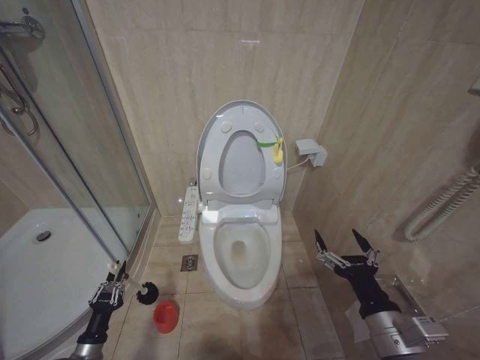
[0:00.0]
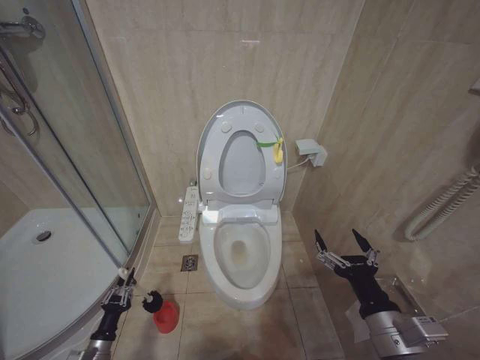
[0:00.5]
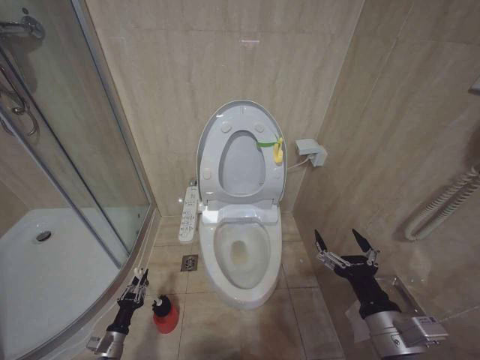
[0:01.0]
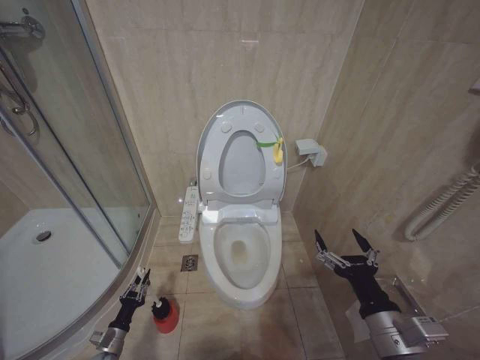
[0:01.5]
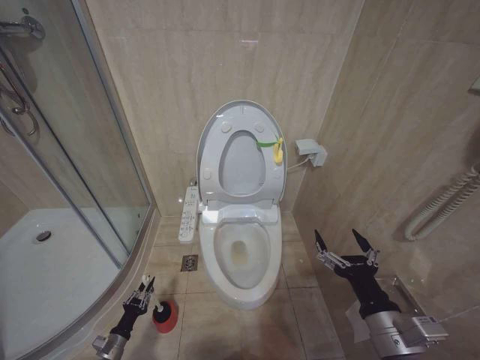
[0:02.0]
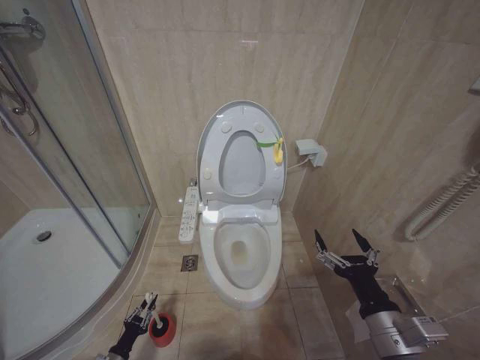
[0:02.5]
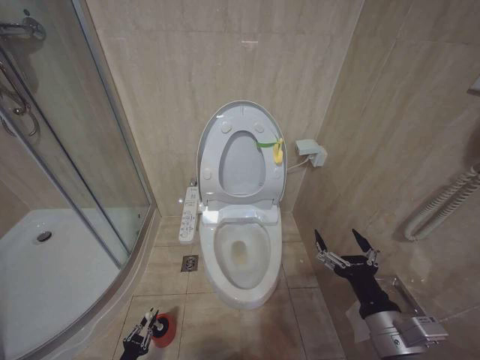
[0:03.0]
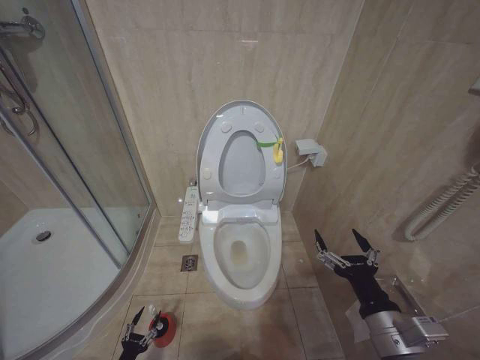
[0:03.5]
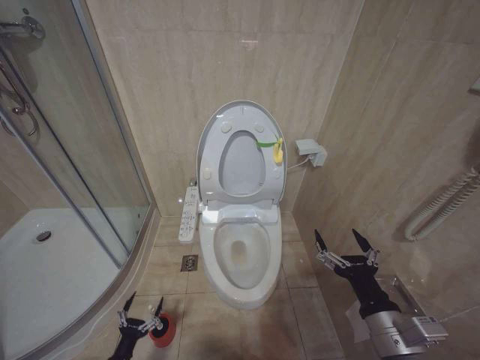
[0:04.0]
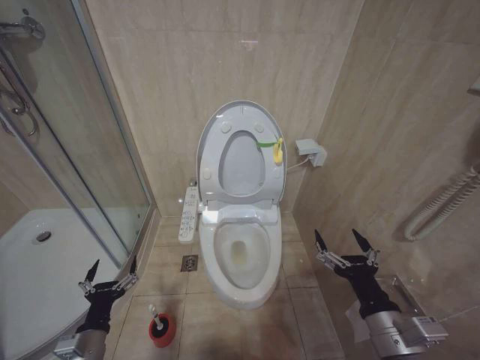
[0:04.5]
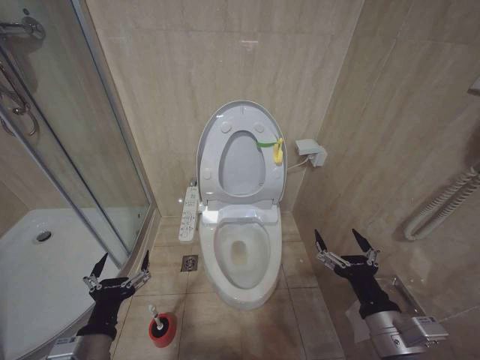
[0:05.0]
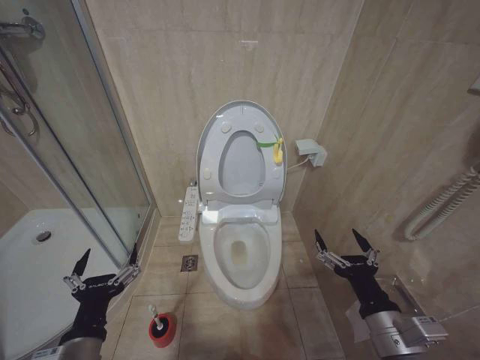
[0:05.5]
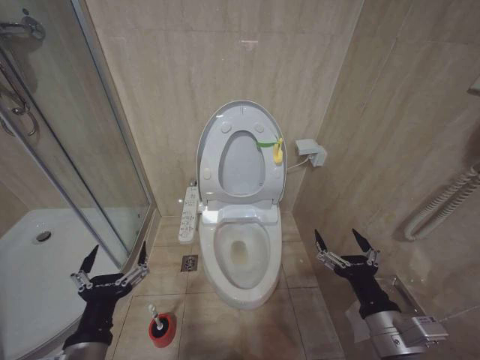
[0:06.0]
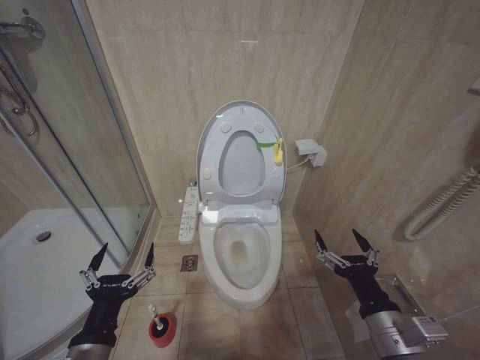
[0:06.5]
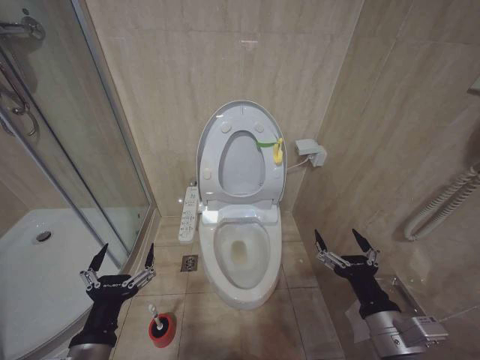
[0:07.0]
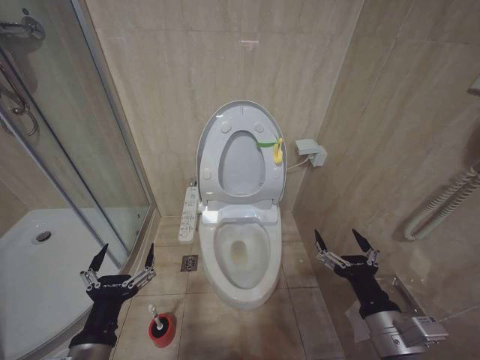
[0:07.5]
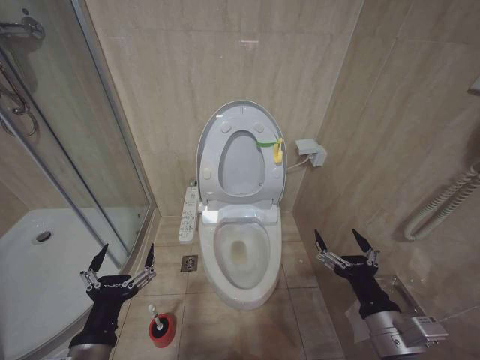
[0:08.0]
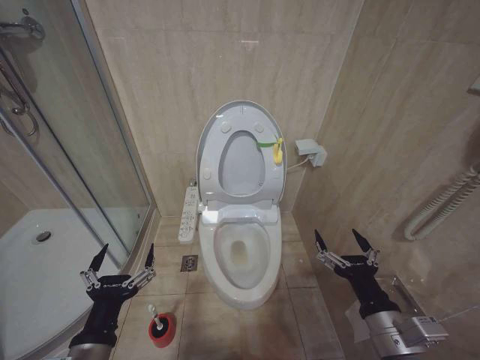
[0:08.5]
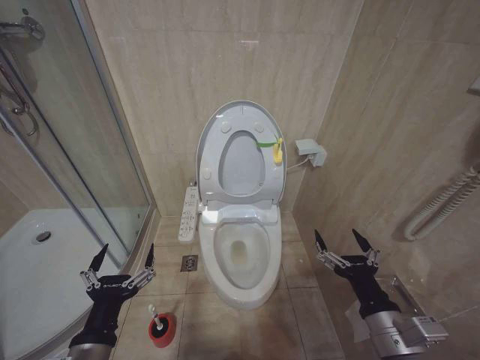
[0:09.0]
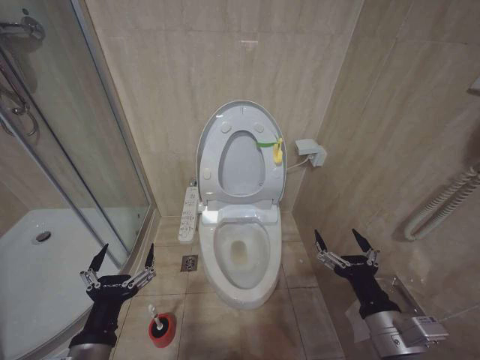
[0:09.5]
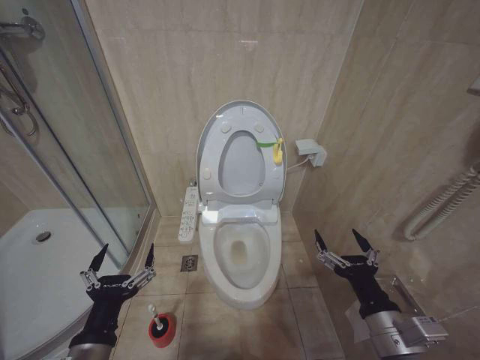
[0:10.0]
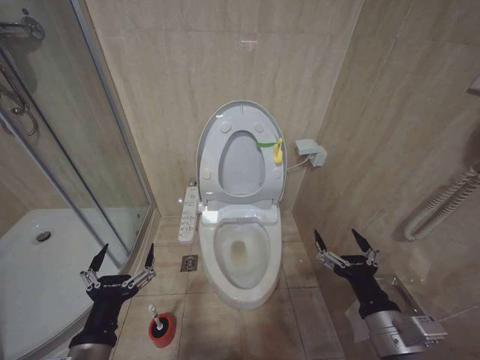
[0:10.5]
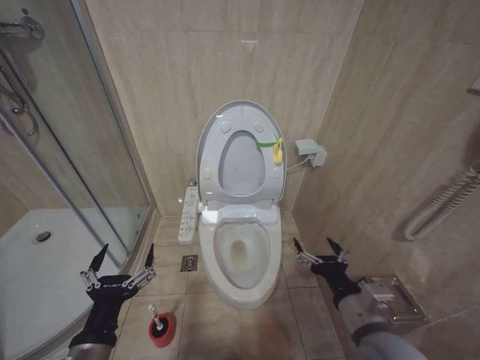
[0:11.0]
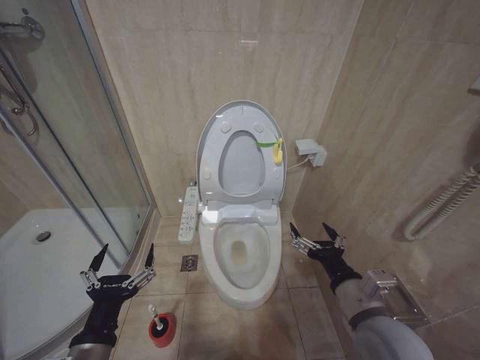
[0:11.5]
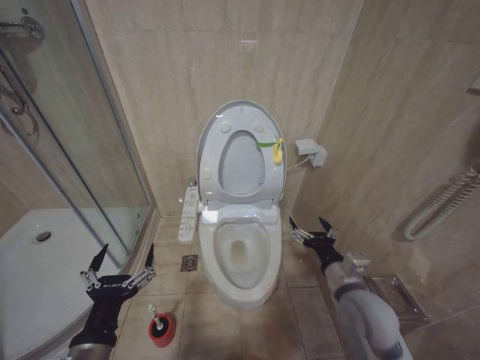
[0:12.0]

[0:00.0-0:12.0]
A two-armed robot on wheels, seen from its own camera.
Task of the whole recording: Open the toilet lid, clean the toilet bowl with a toilet brush, close the toilet lid, and flush.
0.0 to 2.0 s: The left gripper moves downward and forward, about 15 cm.
2.0 to 4.0 s: The left gripper moves backward and to the right, some 10 cm, and opens its fingers.
4.0 to 6.0 s: The left gripper goes some 35 cm upward.
6.0 to 8.0 s: The grippers move only a little.
8.0 to 10.0 s: Both grippers stay about where they are.
10.0 to 12.0 s: The right gripper travels forward by approximately 10 cm.

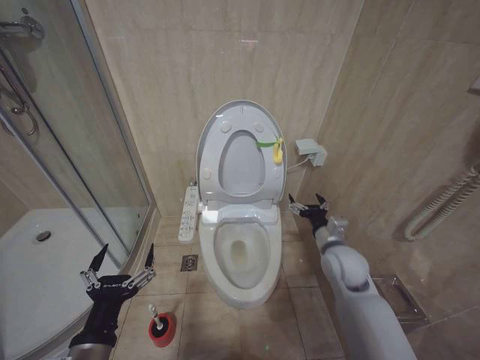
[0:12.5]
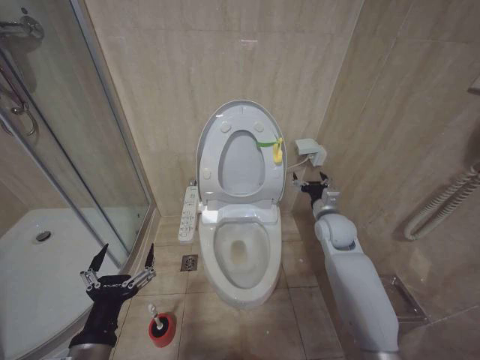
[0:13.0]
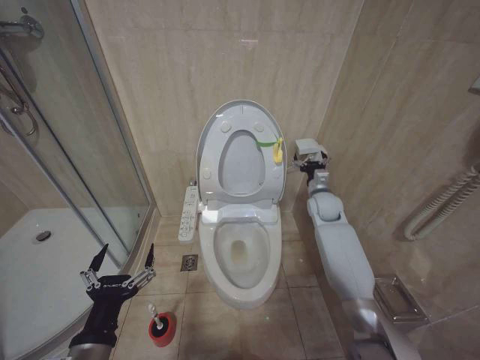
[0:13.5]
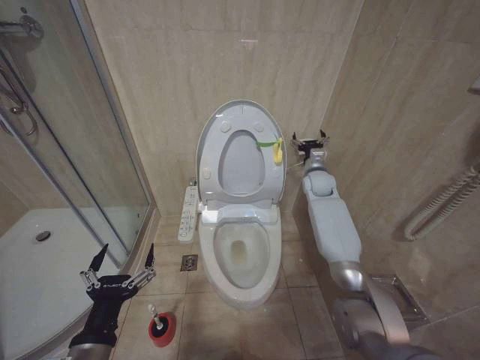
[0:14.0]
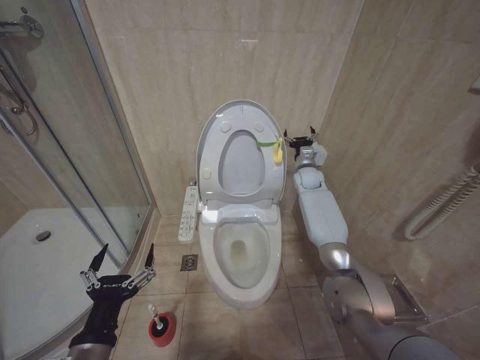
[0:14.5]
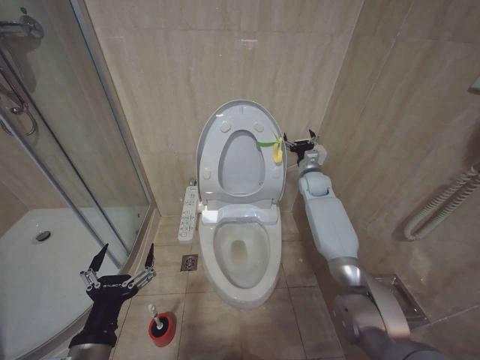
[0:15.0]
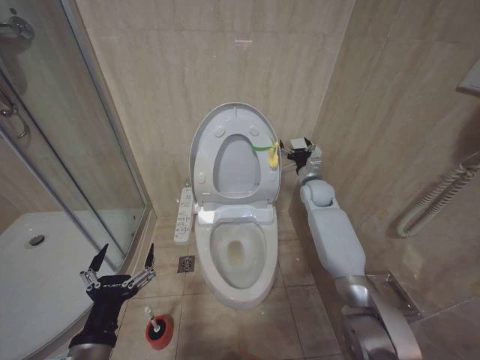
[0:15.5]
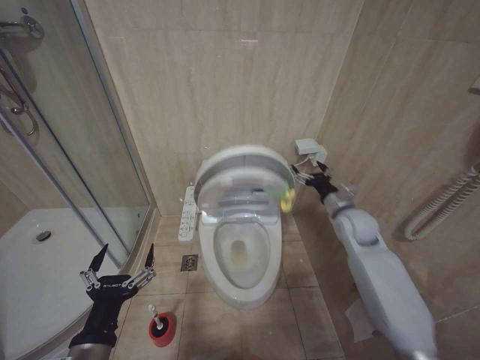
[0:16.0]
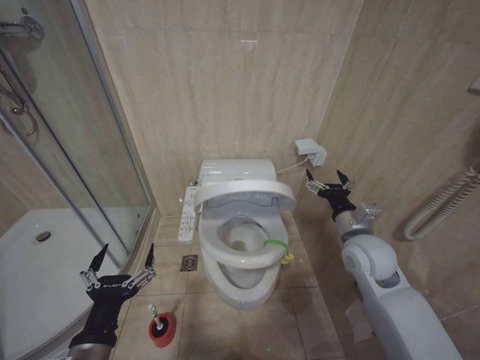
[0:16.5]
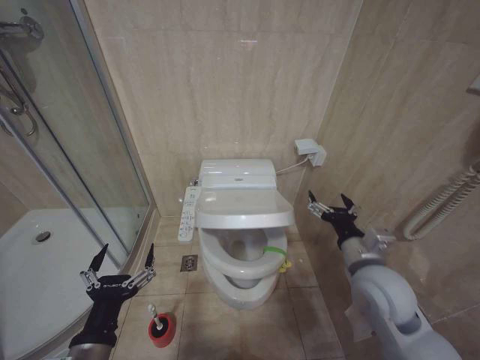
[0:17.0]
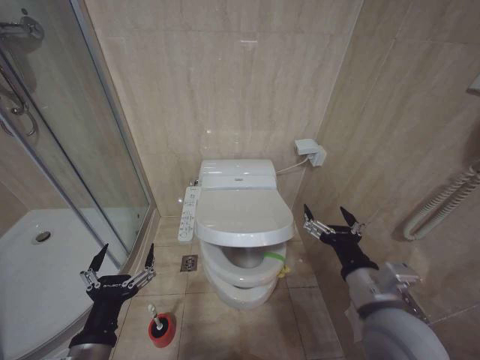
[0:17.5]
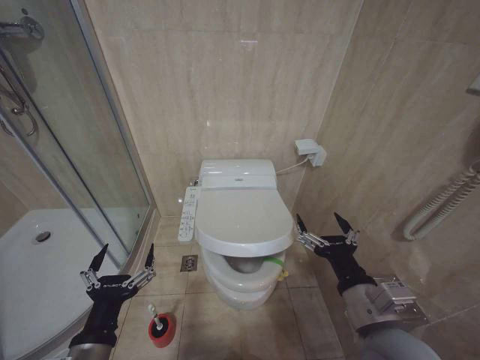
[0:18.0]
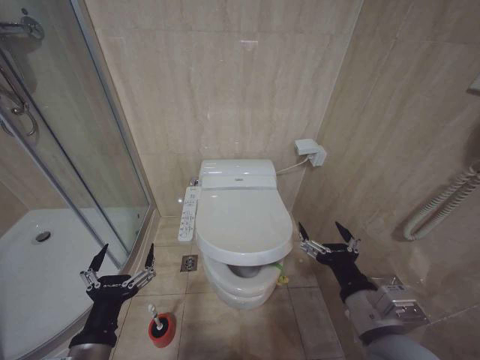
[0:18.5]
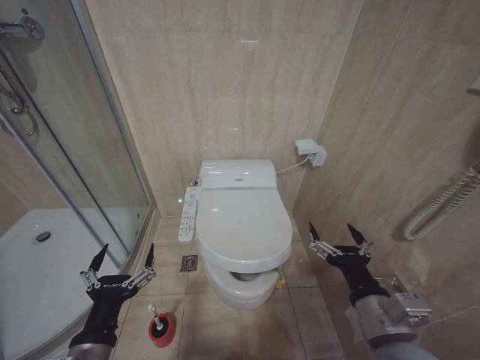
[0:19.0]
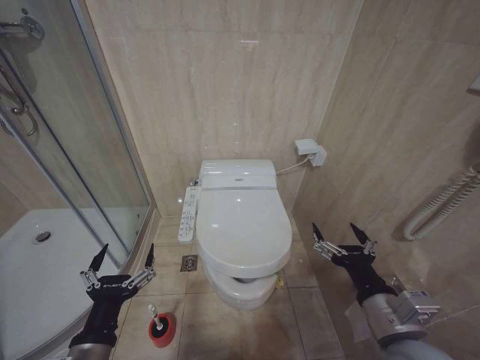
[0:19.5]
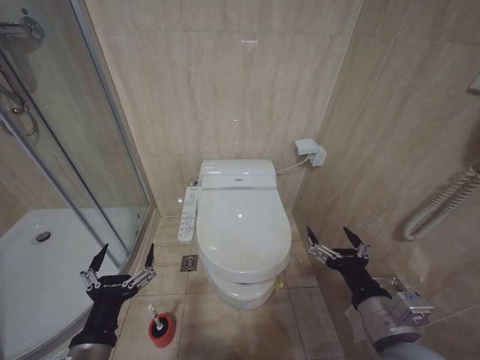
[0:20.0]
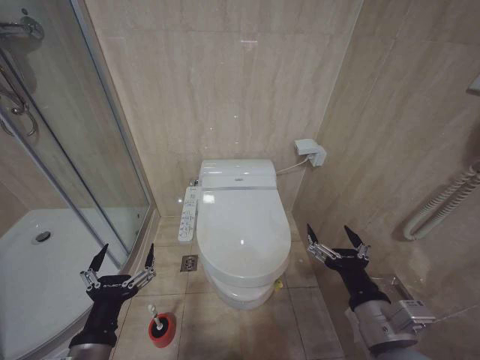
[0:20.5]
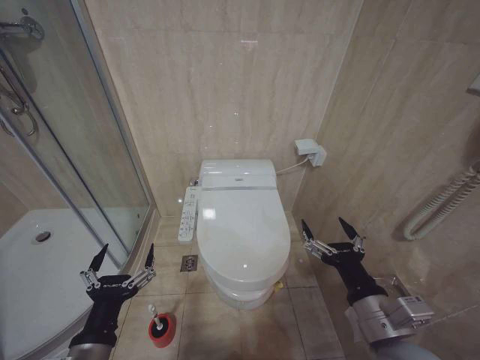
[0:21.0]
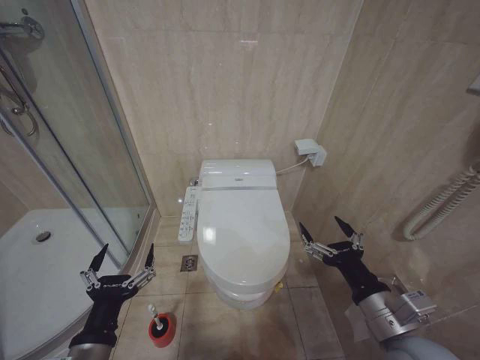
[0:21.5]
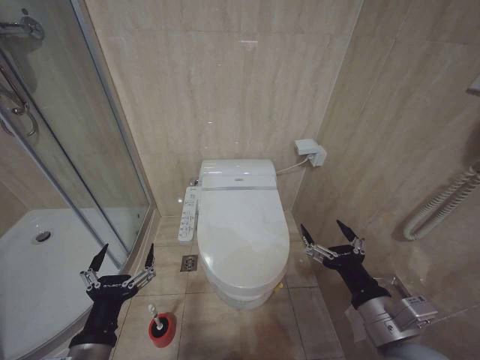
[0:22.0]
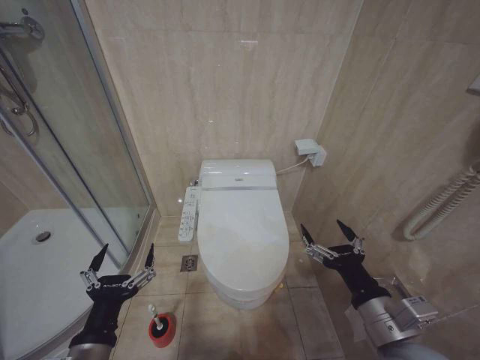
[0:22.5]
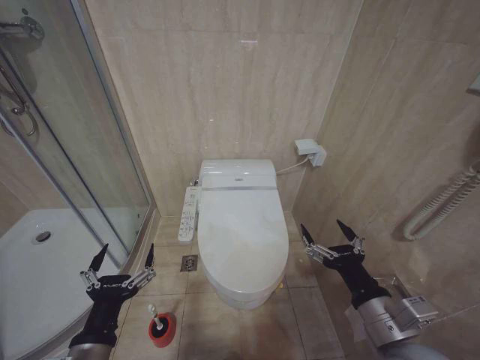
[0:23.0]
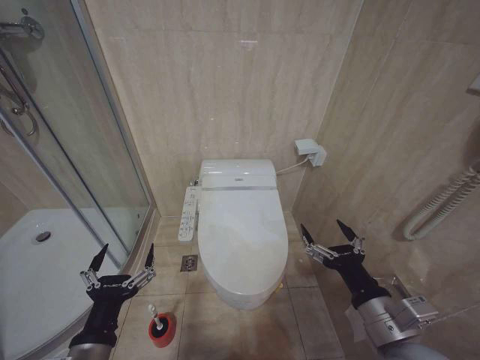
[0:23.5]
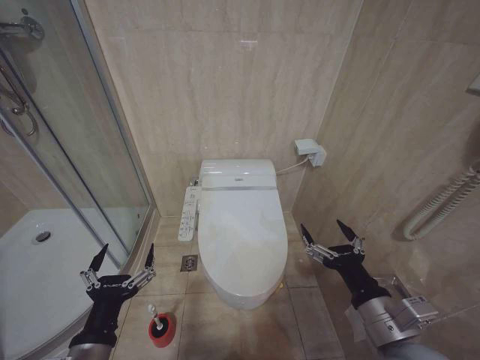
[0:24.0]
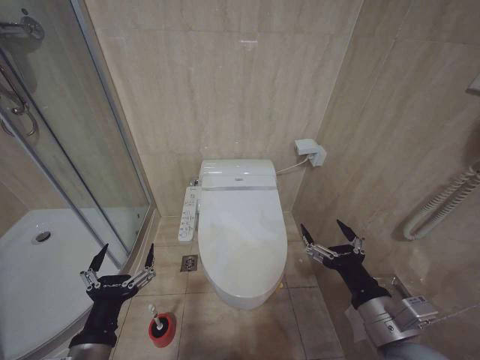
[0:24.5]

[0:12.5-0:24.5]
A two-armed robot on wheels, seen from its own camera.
Task of the whole recording: Open the toilet lid, clean the toilet bowl with a toilet brush, close the toilet lid, and flush.
12.5 to 14.5 s: The right gripper shifts about 30 cm forward.
14.5 to 16.5 s: The right gripper travels backward by approximately 30 cm.
16.5 to 18.5 s: The right gripper shifts roughly 20 cm backward.
18.5 to 22.5 s: There are only small adjustments of the grippers.
22.5 to 24.5 s: The two grippers keep their place.

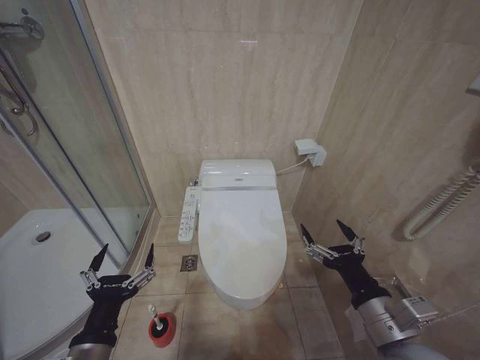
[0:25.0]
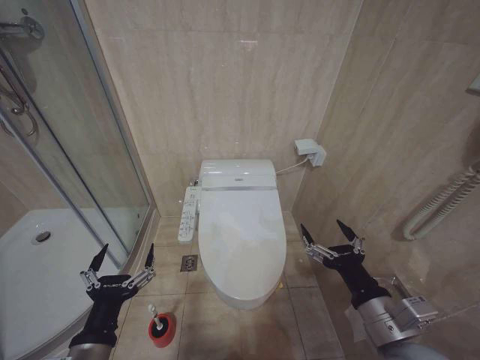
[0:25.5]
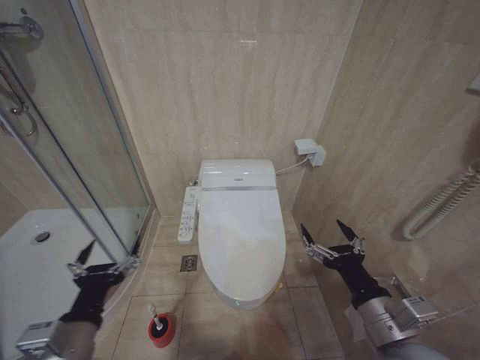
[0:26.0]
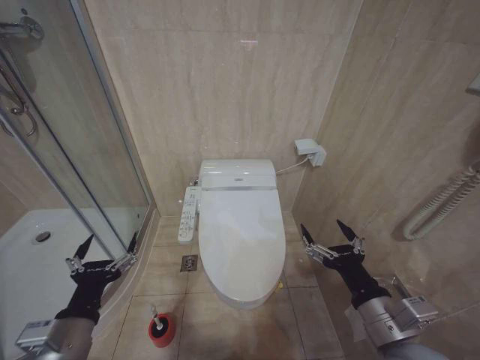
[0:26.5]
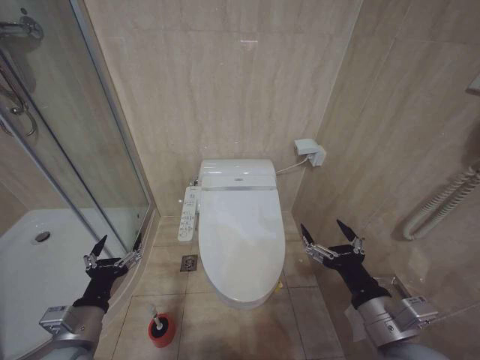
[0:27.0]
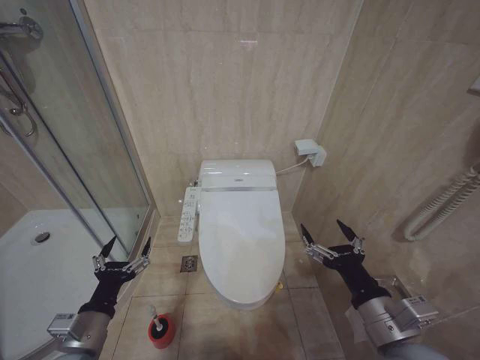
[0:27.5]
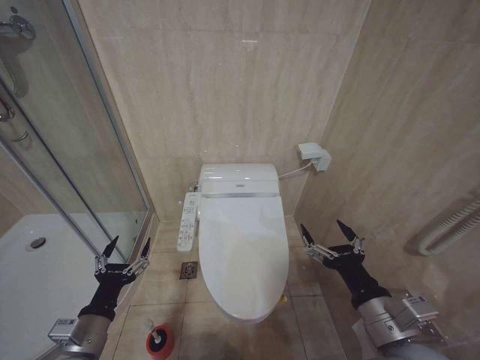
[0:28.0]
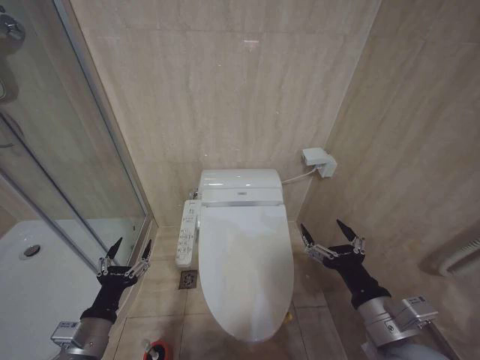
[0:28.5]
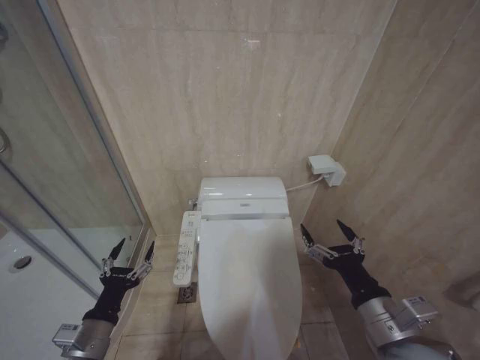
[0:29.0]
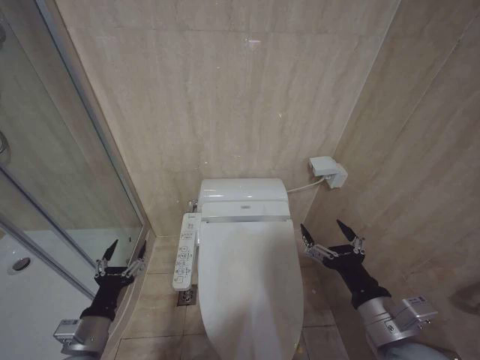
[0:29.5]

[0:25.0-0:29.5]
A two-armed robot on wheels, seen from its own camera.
Task of the whole recording: Open the toilet lid, clean the toilet bowl with a toilet brush, close the toilet lid, and flush.
25.0 to 27.0 s: The left gripper shifts some 10 cm forward and to the left.
27.0 to 29.5 s: There are only small adjustments of the grippers.
